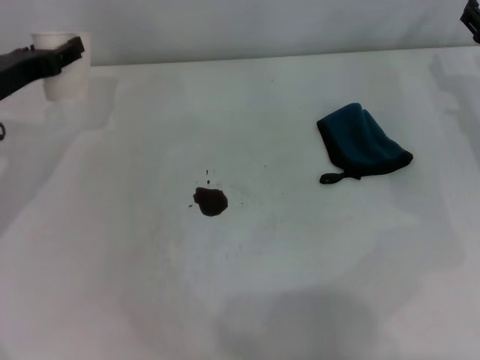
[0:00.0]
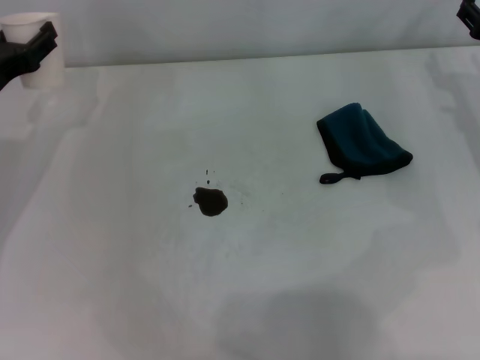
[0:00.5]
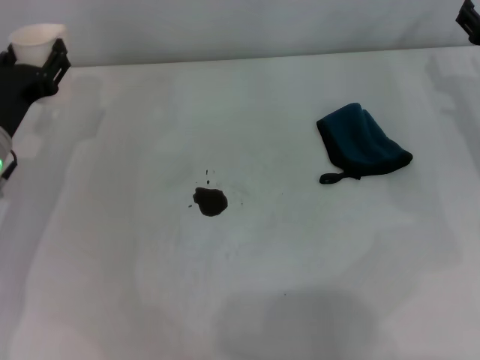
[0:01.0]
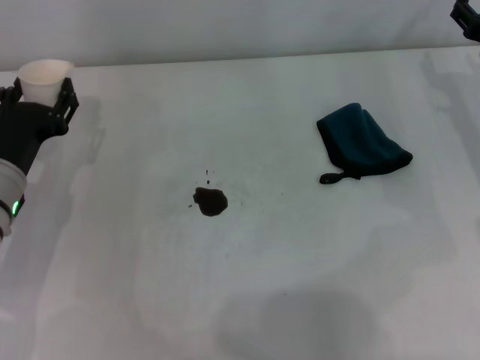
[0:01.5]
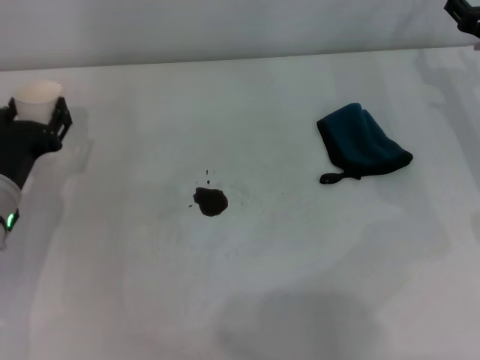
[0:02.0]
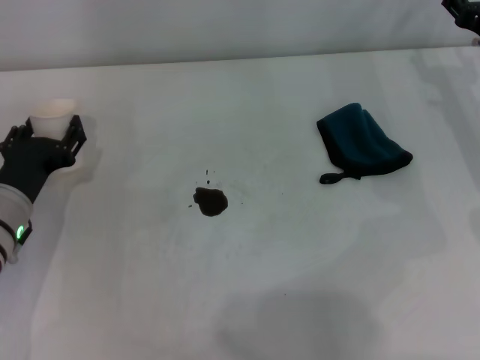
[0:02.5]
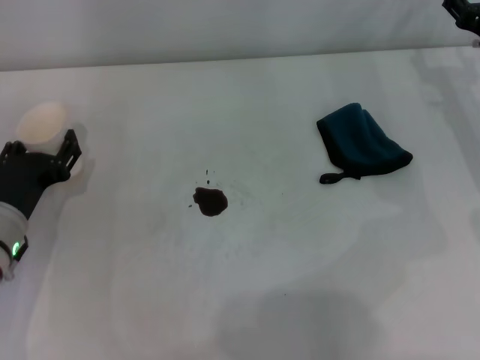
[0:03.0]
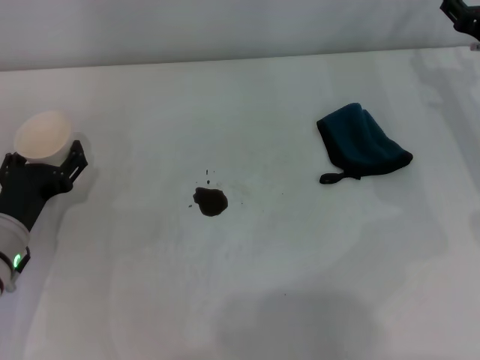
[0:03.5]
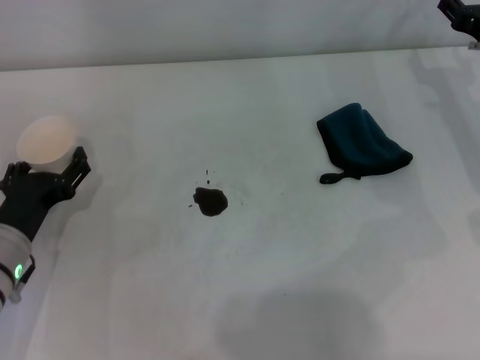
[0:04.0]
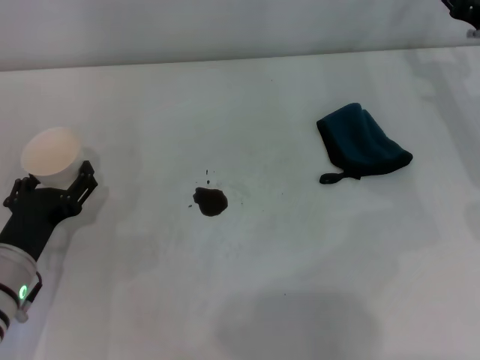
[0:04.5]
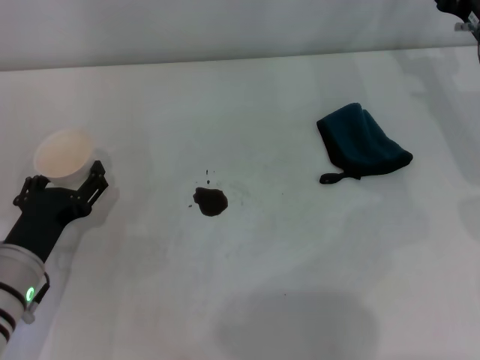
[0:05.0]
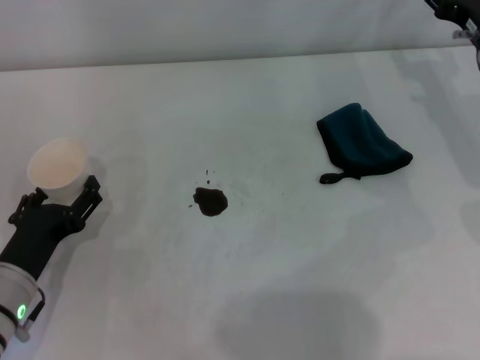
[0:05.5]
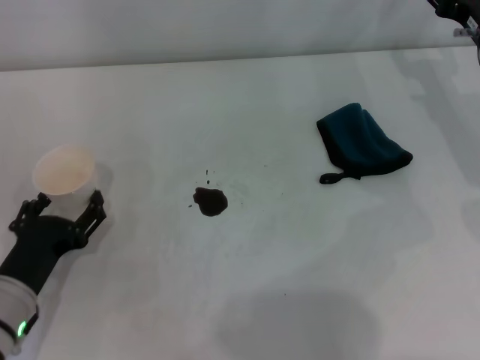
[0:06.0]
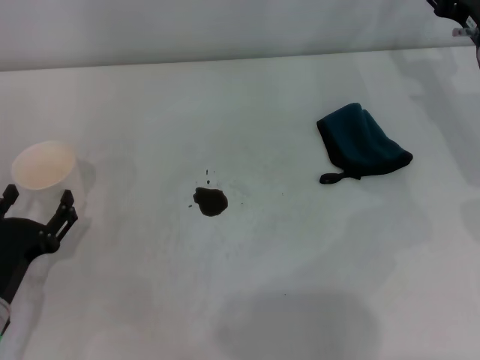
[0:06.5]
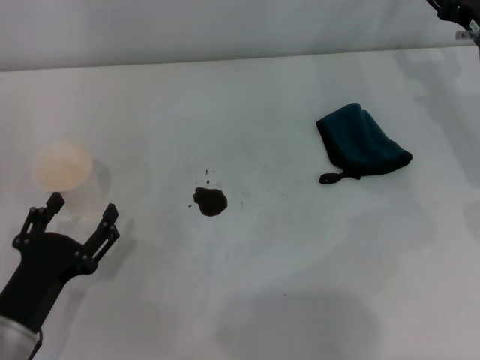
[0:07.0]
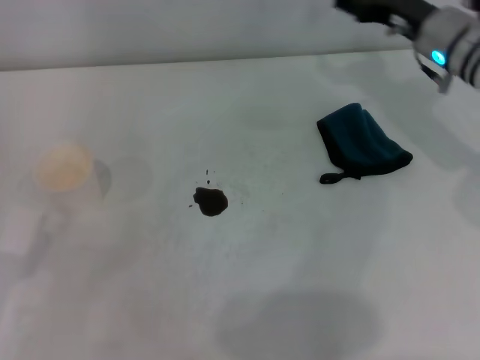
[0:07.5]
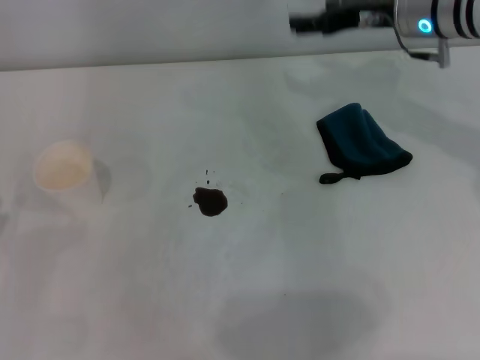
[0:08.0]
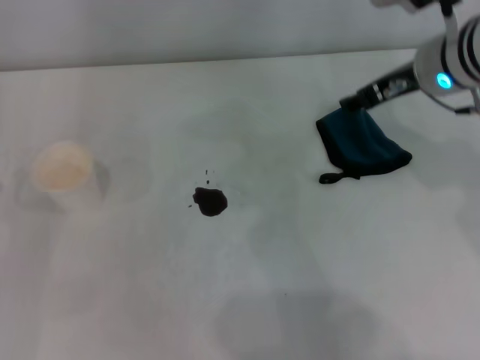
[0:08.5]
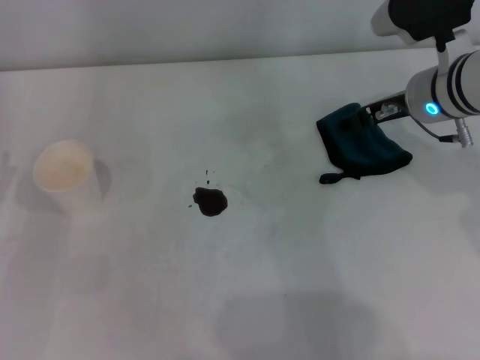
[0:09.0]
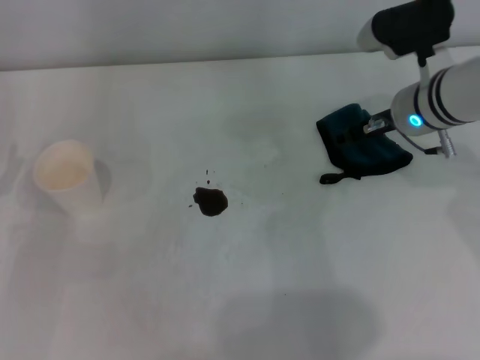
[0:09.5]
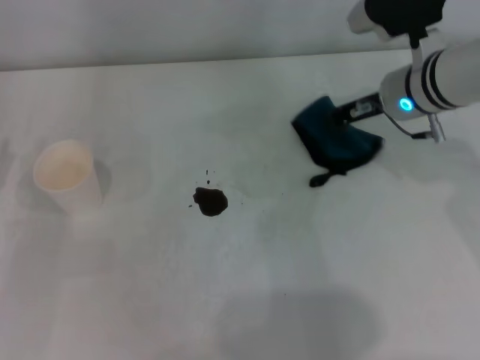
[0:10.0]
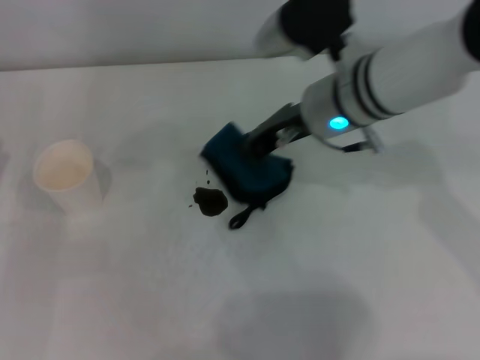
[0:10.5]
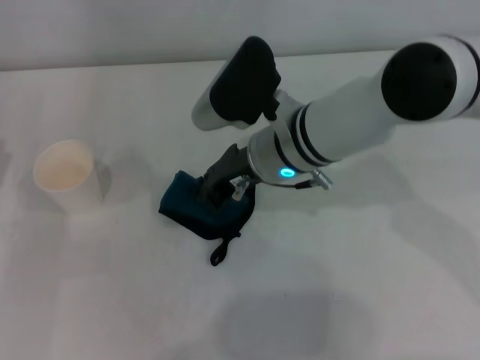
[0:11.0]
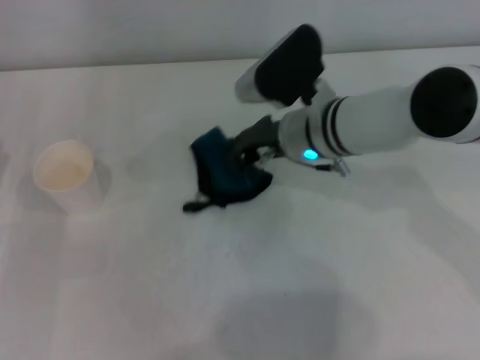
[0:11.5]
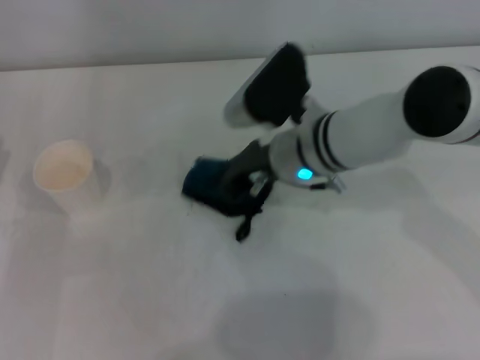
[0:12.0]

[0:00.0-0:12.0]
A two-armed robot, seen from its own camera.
Step, 0:00.0 to 0:05.5: Stand the paper cup upright with the left gripper.
Step, 0:06.5 to 0:09.5: Grasp the rag with the right gripper.
0:00.0 to 0:02.0: The left gripper goes some 10 cm downward and backward.
0:02.0 to 0:04.0: The left gripper ends up roughly 5 cm from where it was, and opens up.
0:04.0 to 0:06.0: The left gripper travels backward by approximately 5 cm.
0:06.0 to 0:08.0: The left gripper moves to the left, approximately 10 cm. Meanwhile the right gripper heads to the left and upward, covering some 10 cm.
0:08.0 to 0:10.0: The left gripper heads forward, covering about 10 cm; the right gripper changes place by approximately 5 cm, and closes its fingers.
0:10.0 to 0:12.0: The right gripper moves to the left, approximately 10 cm, and closes.

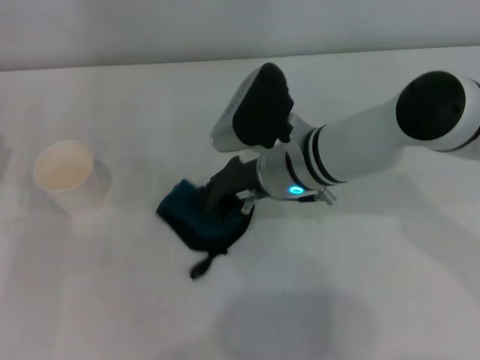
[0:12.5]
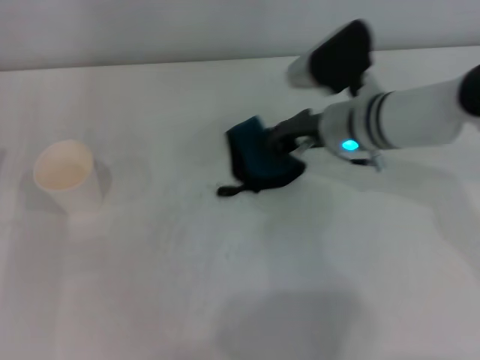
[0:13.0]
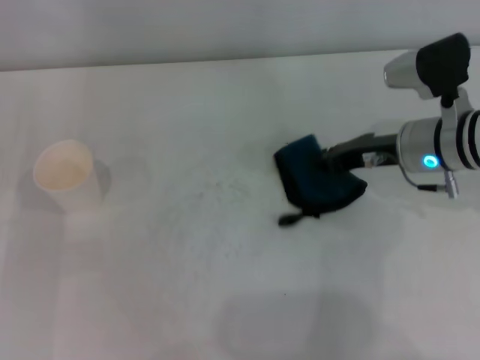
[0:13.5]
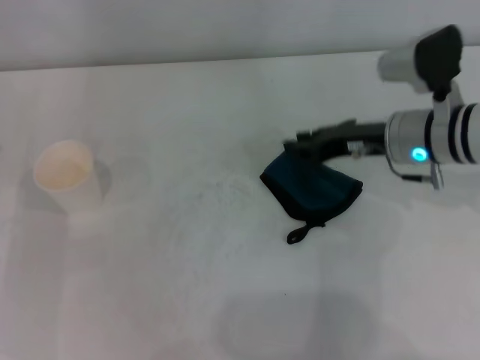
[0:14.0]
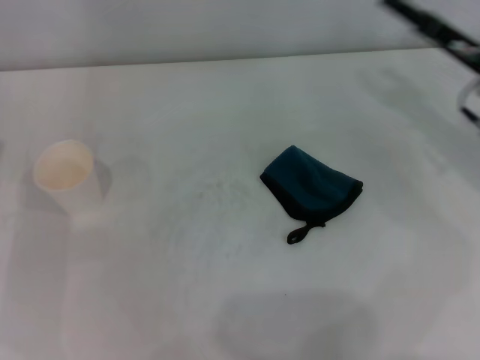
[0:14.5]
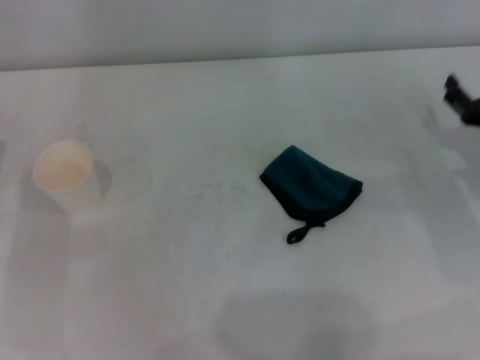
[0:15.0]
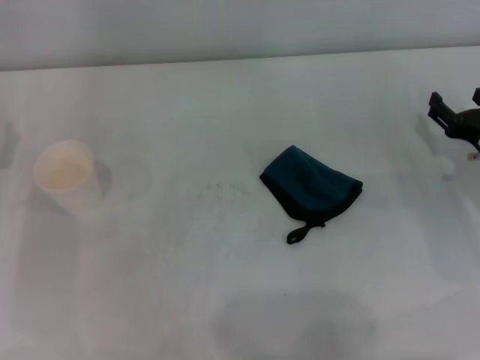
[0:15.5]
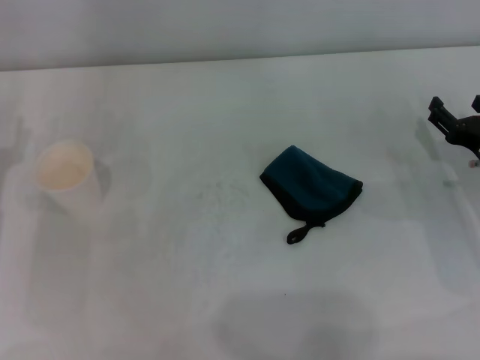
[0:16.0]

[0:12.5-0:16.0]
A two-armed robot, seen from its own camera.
0:12.5 to 0:14.5: The right gripper heads to the right, covering some 20 cm, and opens its fingers.
0:14.5 to 0:16.0: The right gripper heads downward and backward, covering roughly 10 cm.
